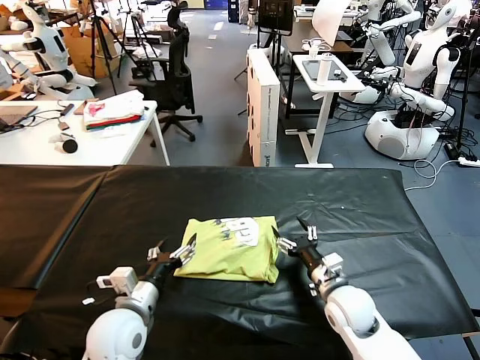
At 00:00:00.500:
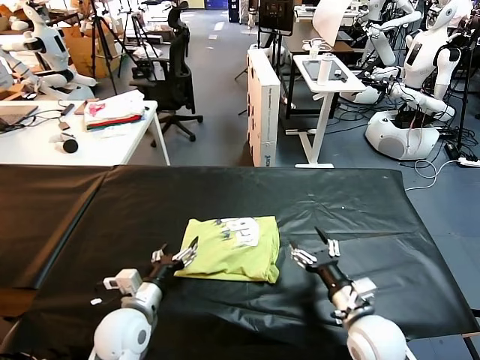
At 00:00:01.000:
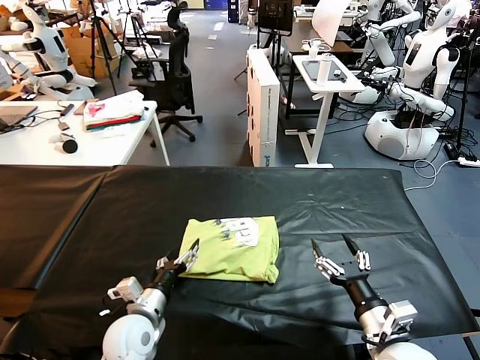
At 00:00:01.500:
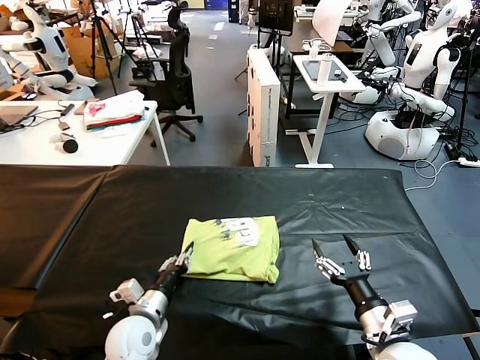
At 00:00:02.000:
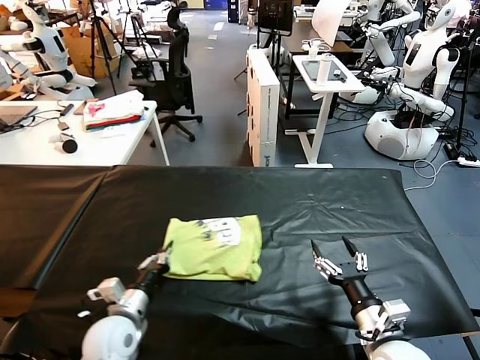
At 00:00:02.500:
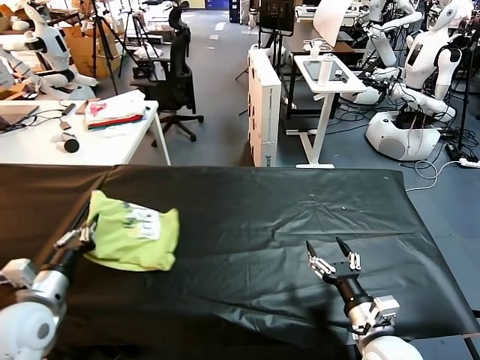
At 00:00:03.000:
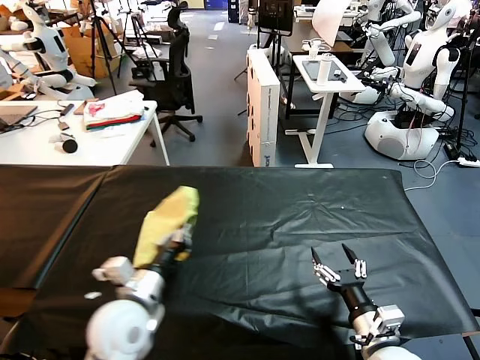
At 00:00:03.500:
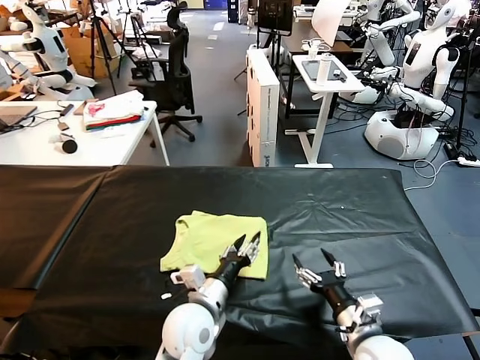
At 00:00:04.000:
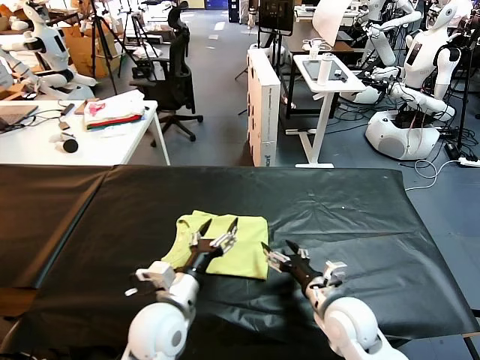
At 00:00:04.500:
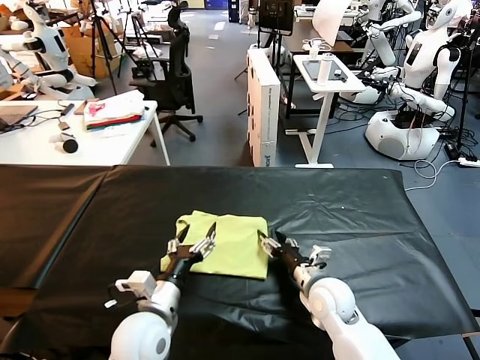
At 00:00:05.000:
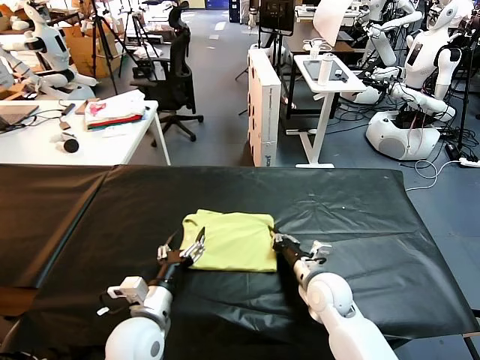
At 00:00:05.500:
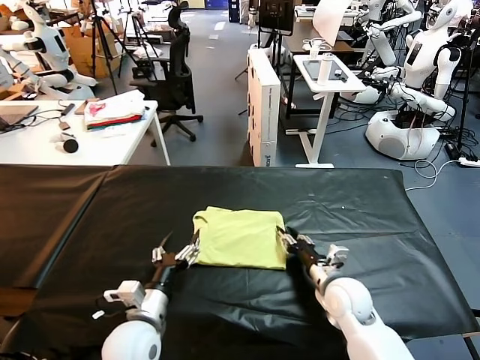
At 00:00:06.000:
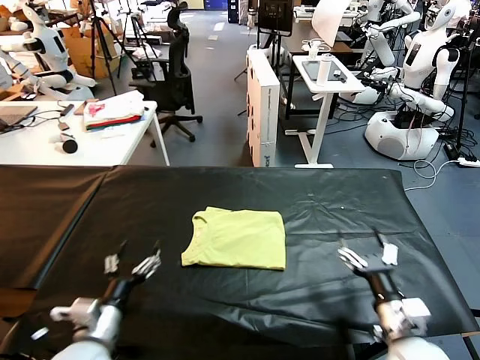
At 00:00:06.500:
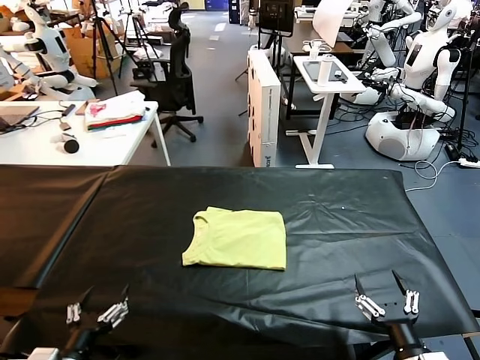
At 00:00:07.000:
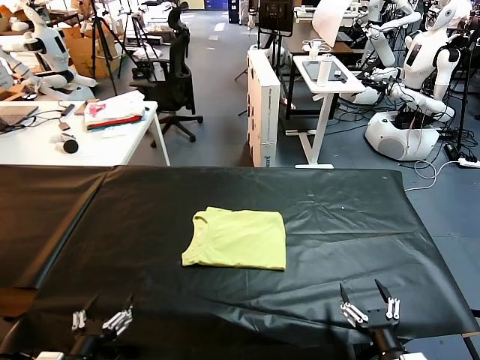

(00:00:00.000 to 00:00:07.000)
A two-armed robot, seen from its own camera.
Task of the whole recording: fold and organize the clothes.
Step, 00:00:00.000 - 00:00:03.500: Flip the folded clothes over with left gripper.
Step, 00:00:04.000 - 00:00:05.500: Drag the clothes to the center of the table.
00:00:00.000 - 00:00:02.000: The left gripper heads downward, covering some 5 cm, and closes its fingers, while the right gripper travels backward and upward by some 15 cm.
00:00:02.000 - 00:00:03.500: The left gripper moves to the right, about 15 cm, and opens.
00:00:03.500 - 00:00:05.000: The right gripper travels forward and to the left by roughly 15 cm, and closes, while the left gripper travels to the left by approximately 10 cm, and opens.
00:00:05.000 - 00:00:07.000: The right gripper heads backward and to the right, covering approximately 25 cm, and opens its fingers. Meanwhile the left gripper travels backward and to the left by approximately 20 cm.
